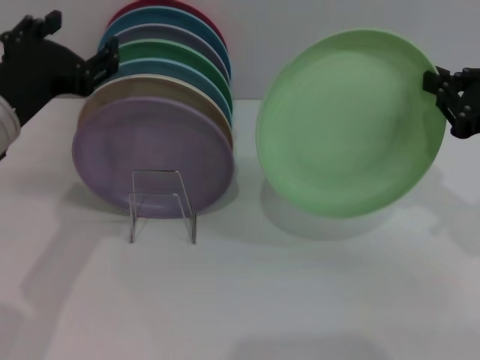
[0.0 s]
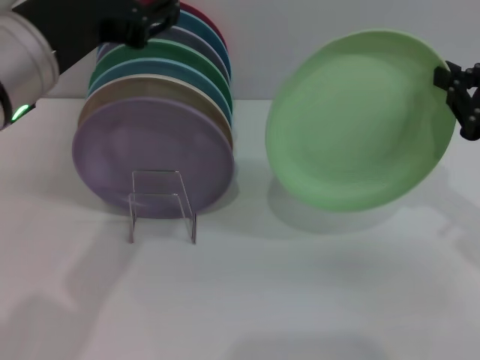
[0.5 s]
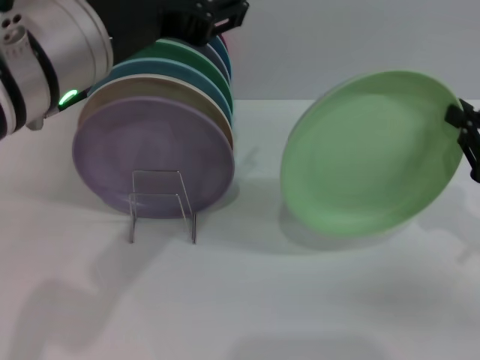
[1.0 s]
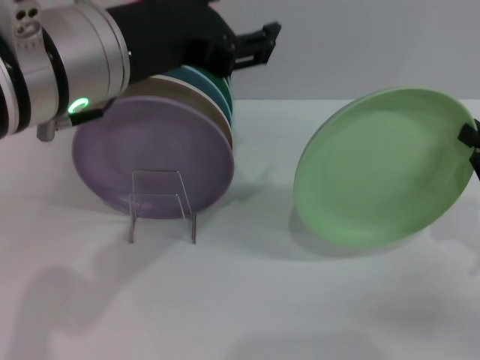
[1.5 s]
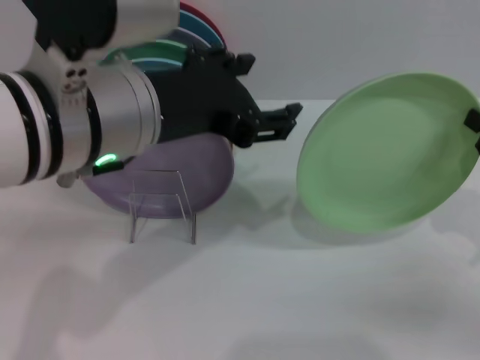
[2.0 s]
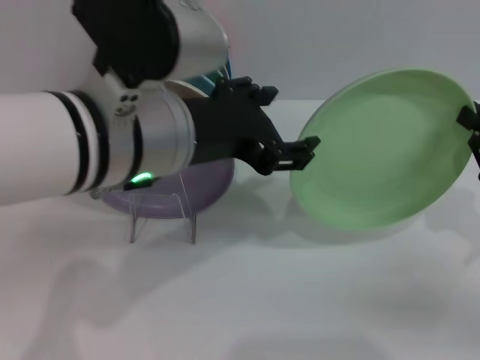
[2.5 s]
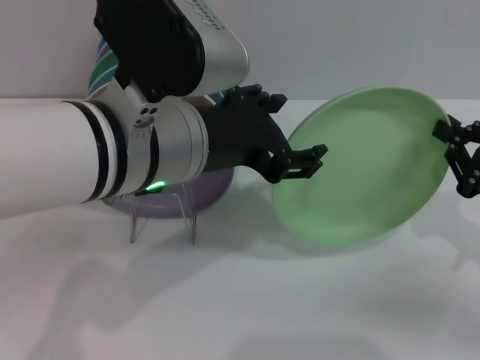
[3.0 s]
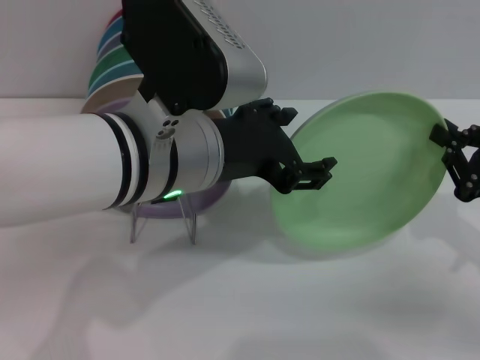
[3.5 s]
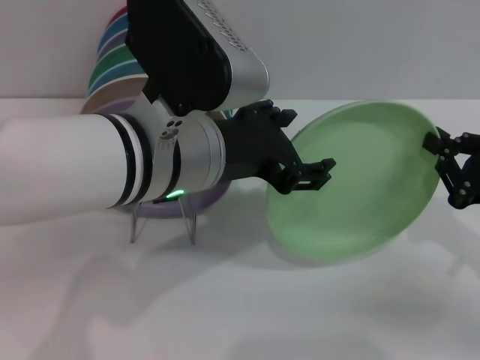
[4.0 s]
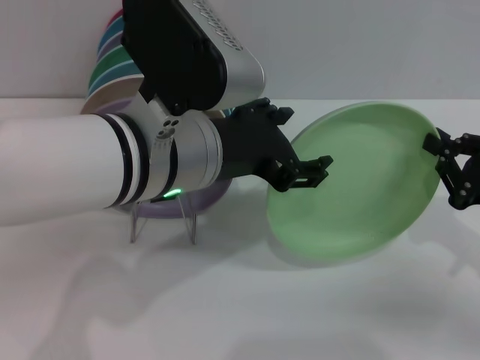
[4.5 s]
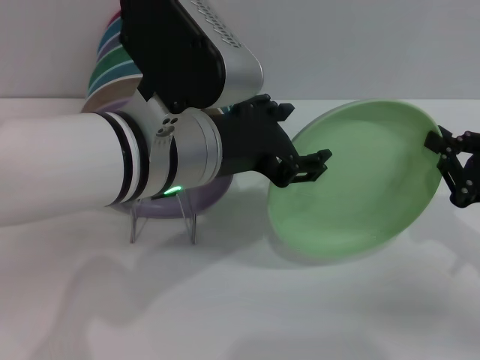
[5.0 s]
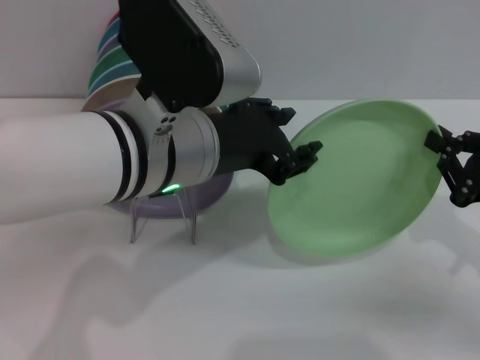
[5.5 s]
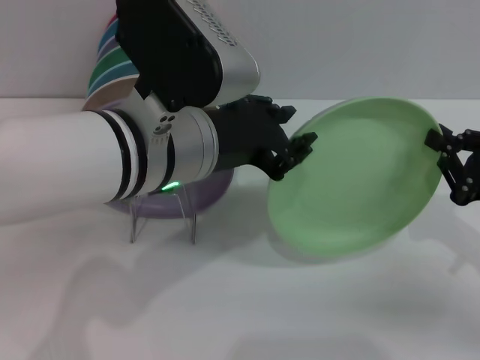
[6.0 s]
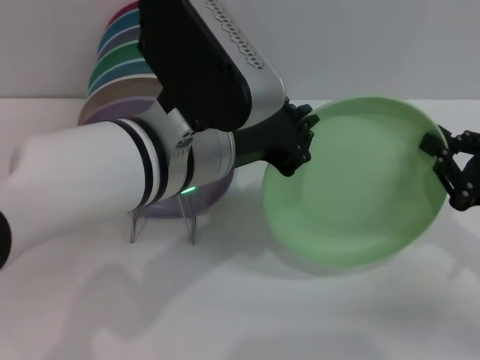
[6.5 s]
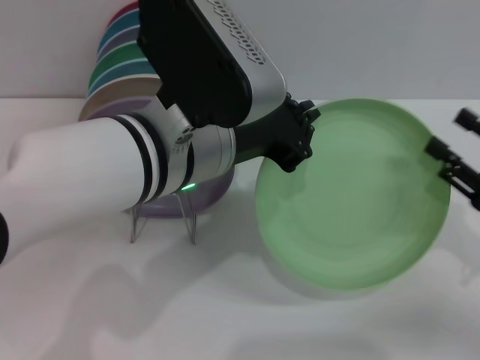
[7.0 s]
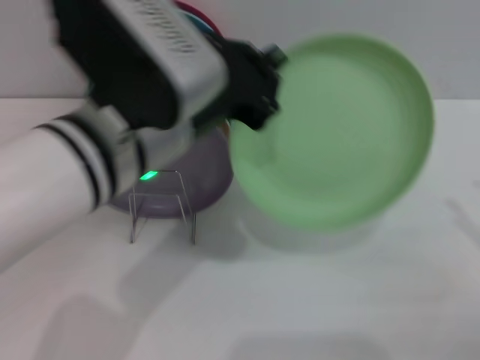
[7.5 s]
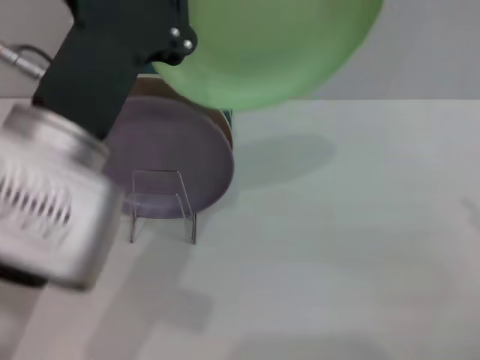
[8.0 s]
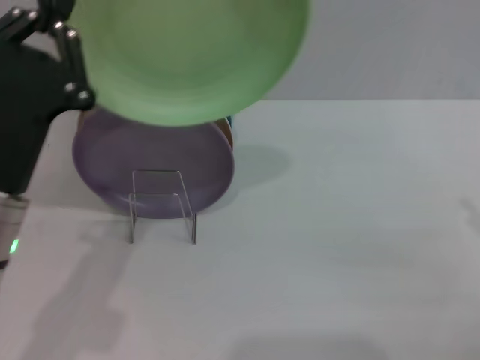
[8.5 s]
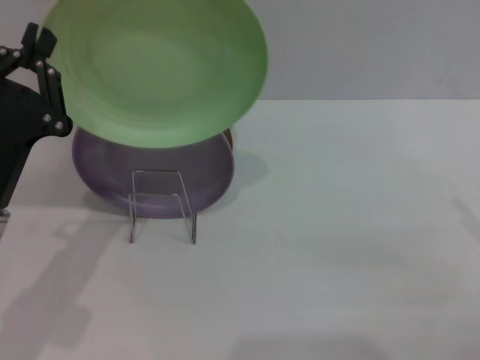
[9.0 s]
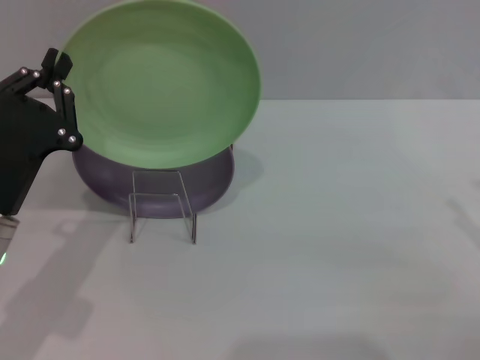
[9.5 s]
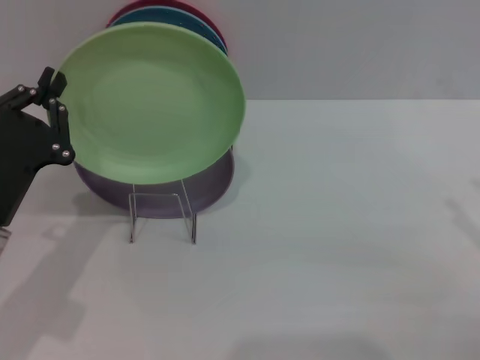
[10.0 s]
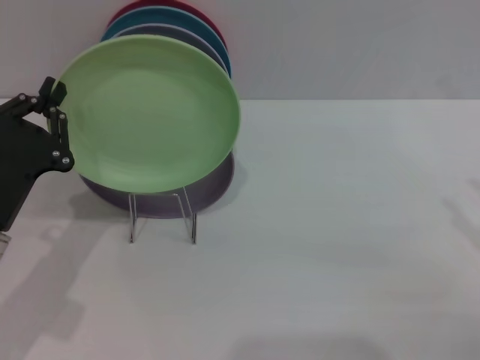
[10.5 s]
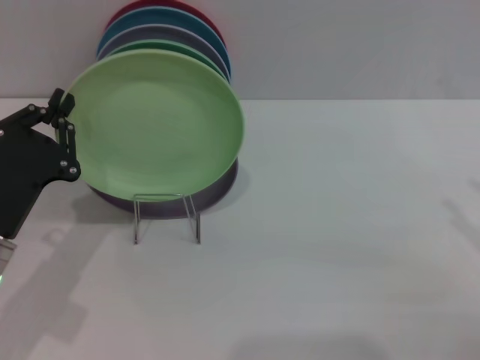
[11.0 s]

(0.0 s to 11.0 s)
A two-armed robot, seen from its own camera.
Task of the whole recording: Grip the plate with one hand, pass it to the other, then set it on the shelf.
Step, 0.0 s - 7.0 s: Pass the plate from the right gripper to the left gripper.
0.0 s - 2.0 s: The right gripper shifts roughly 10 cm downward, while the left gripper heads to the right and upward, covering roughly 10 cm.
2.0 s - 3.5 s: The left gripper shifts by approximately 5 cm.
3.5 s - 5.5 s: Both grippers stay about where they are.
5.5 s - 7.5 s: The left gripper closes up, while the right gripper moves backward, some 5 cm, and opens up.
7.5 s - 9.0 s: The left gripper moves to the left and downward, approximately 20 cm.
9.0 s - 11.0 s: The grippers stay close to where they were, moving slightly.

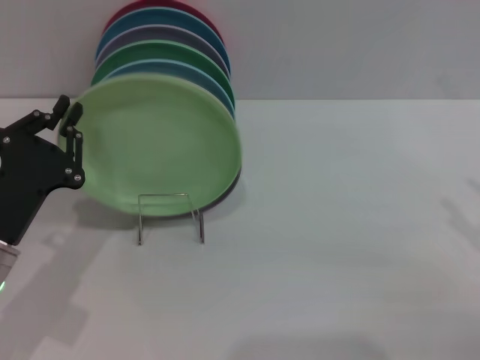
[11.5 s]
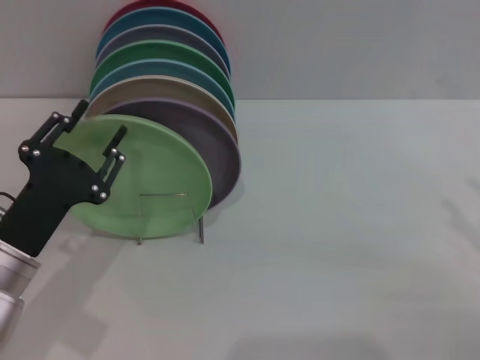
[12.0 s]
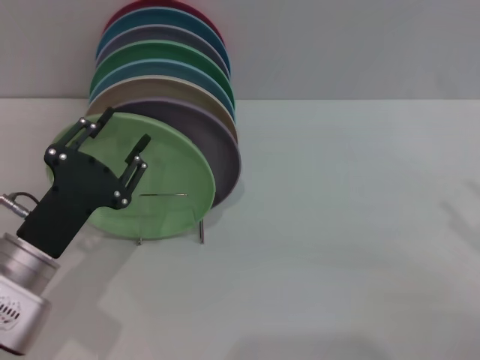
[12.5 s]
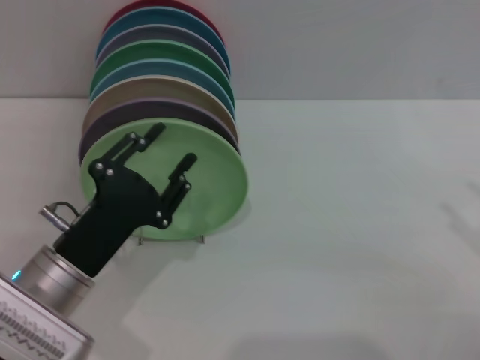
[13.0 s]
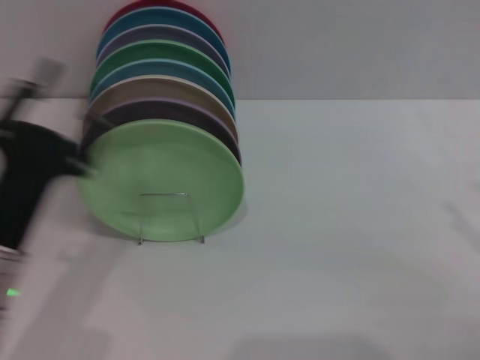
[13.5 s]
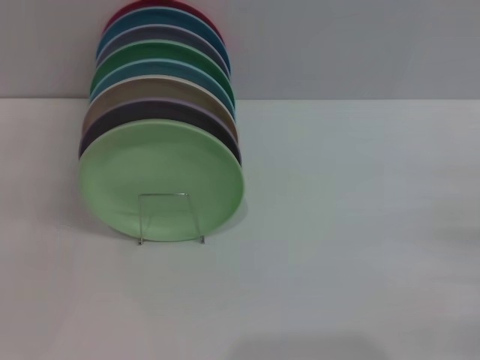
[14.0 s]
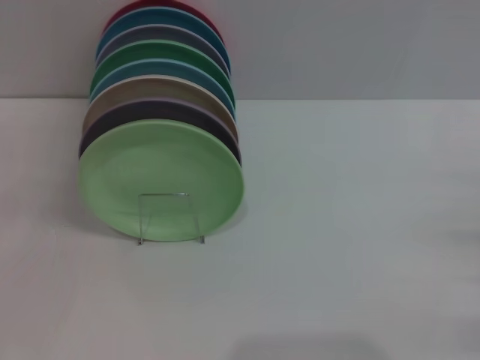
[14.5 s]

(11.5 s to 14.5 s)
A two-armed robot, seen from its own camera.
Task of the whole recording: Grip the plate with one hand, pass it to the other, then set it on the shelf.
11.5 s - 13.0 s: The left gripper travels to the right by approximately 5 cm, and opens its fingers.
13.0 s - 14.5 s: The left gripper shifts about 15 cm to the left. Meanwhile the right gripper goes about 10 cm downward.
